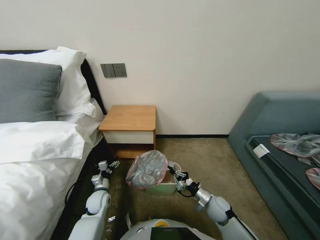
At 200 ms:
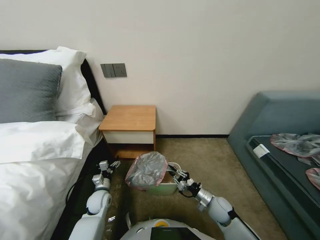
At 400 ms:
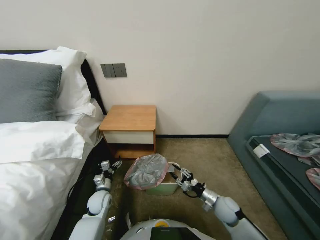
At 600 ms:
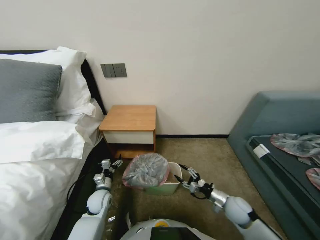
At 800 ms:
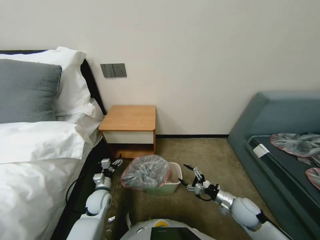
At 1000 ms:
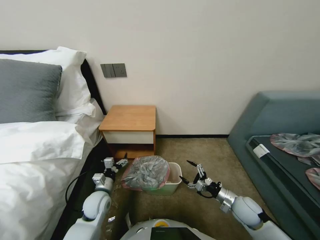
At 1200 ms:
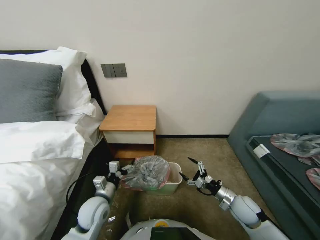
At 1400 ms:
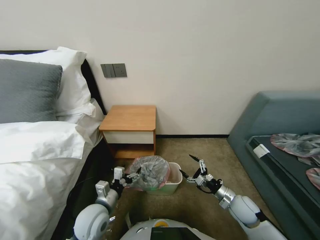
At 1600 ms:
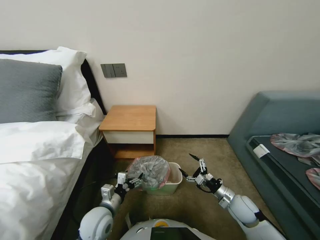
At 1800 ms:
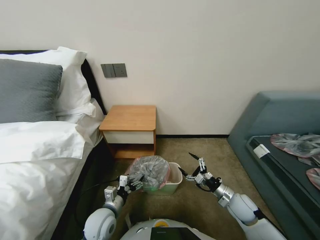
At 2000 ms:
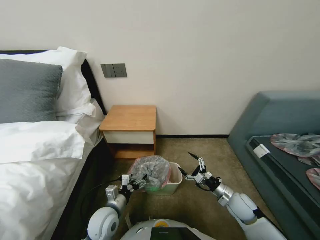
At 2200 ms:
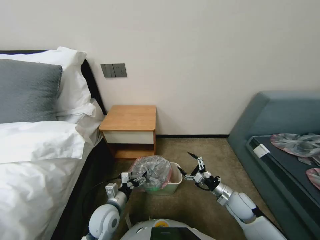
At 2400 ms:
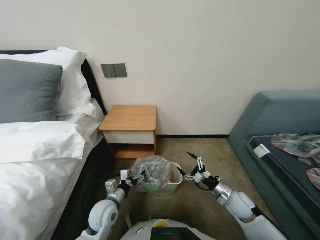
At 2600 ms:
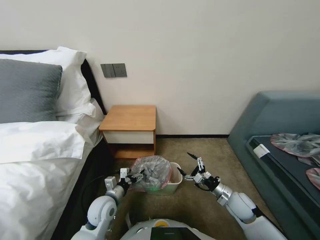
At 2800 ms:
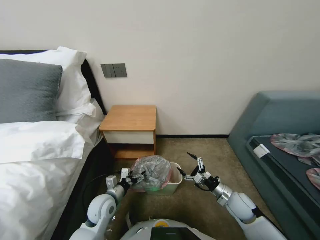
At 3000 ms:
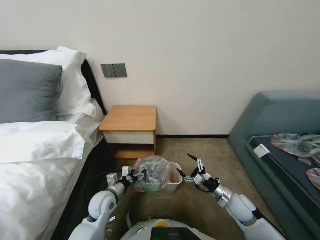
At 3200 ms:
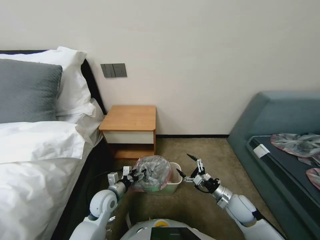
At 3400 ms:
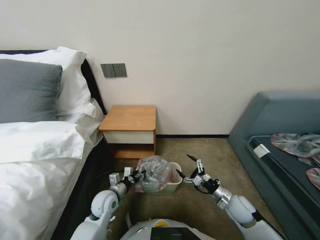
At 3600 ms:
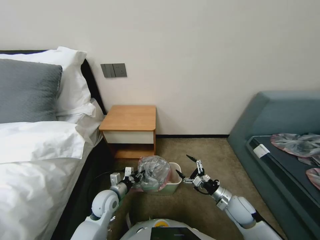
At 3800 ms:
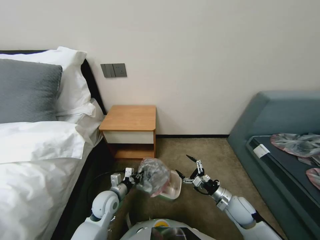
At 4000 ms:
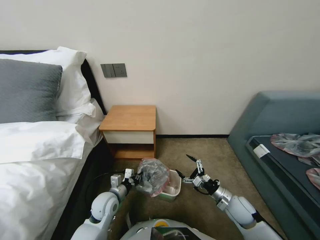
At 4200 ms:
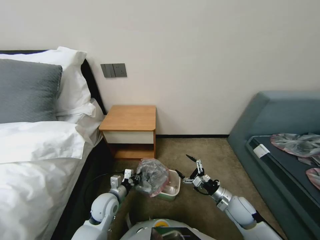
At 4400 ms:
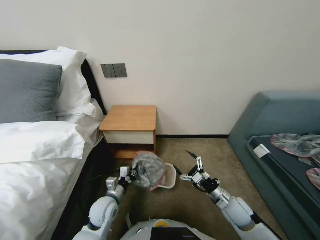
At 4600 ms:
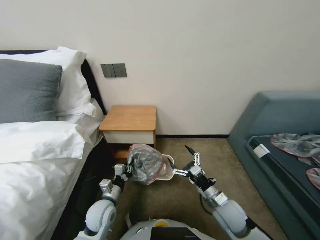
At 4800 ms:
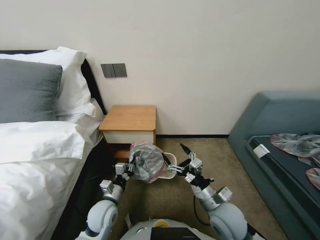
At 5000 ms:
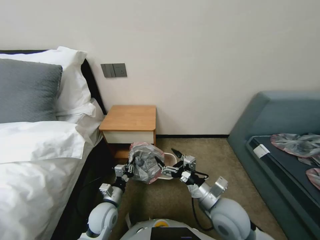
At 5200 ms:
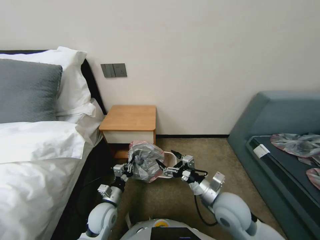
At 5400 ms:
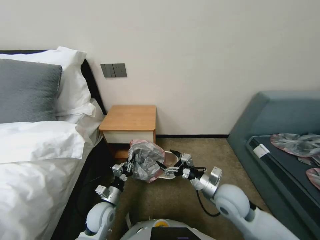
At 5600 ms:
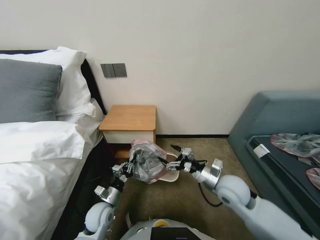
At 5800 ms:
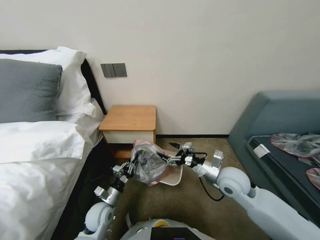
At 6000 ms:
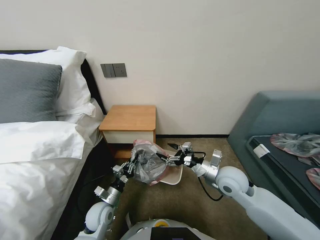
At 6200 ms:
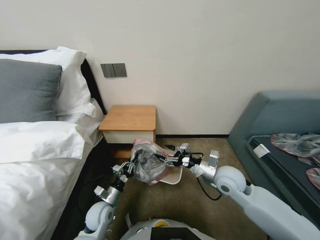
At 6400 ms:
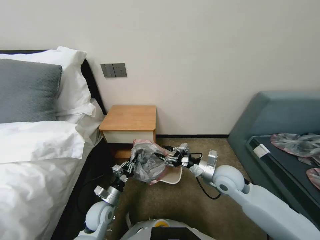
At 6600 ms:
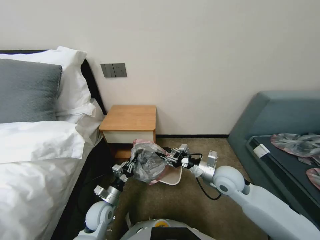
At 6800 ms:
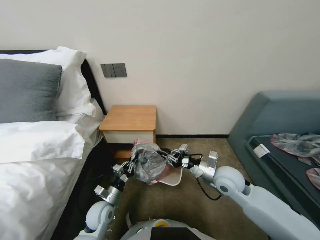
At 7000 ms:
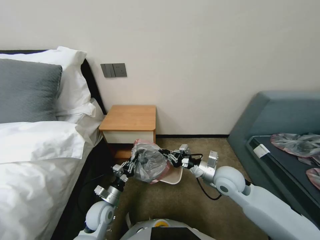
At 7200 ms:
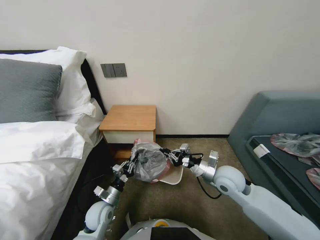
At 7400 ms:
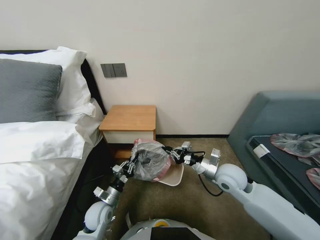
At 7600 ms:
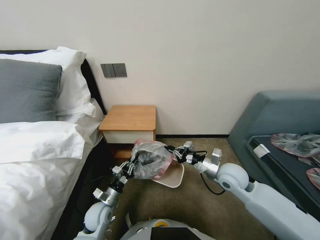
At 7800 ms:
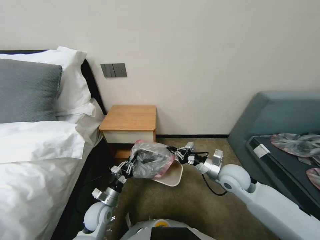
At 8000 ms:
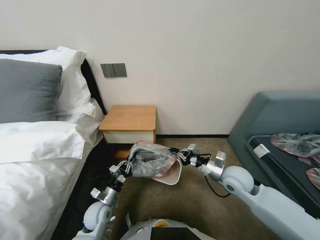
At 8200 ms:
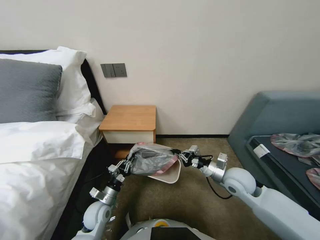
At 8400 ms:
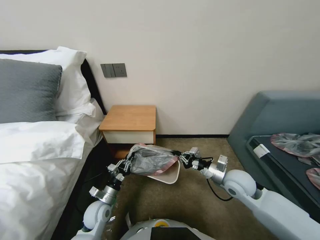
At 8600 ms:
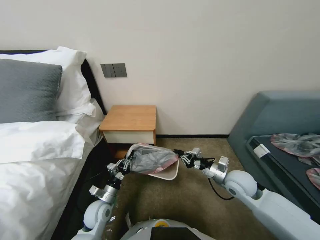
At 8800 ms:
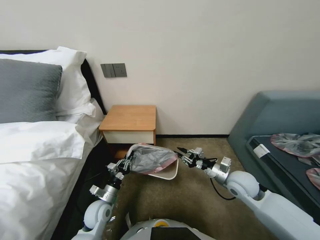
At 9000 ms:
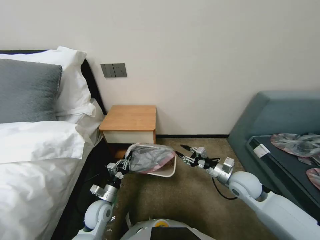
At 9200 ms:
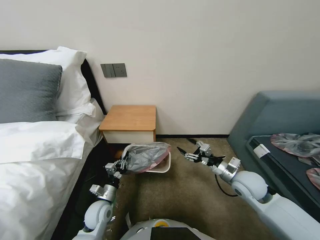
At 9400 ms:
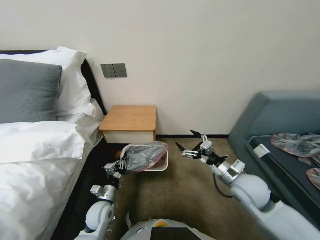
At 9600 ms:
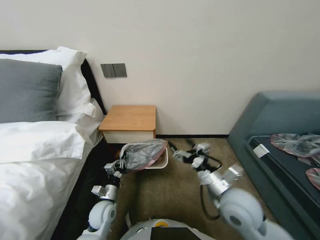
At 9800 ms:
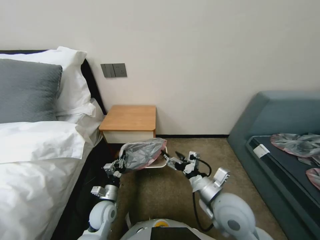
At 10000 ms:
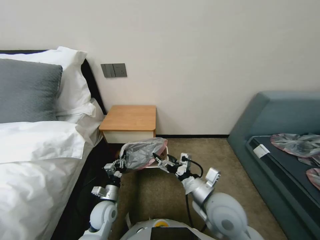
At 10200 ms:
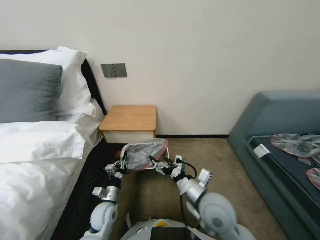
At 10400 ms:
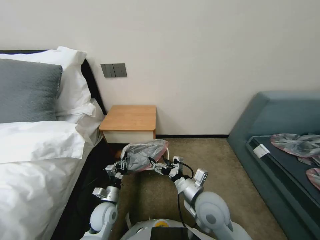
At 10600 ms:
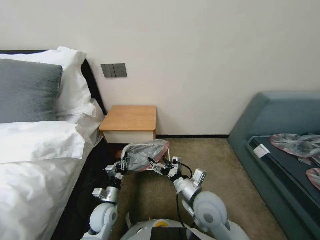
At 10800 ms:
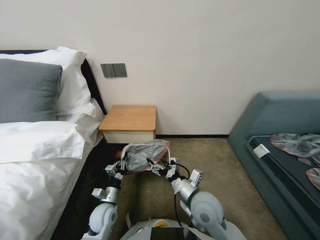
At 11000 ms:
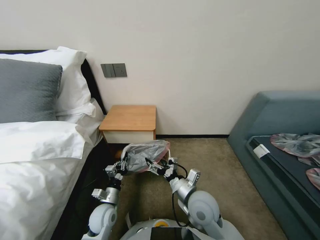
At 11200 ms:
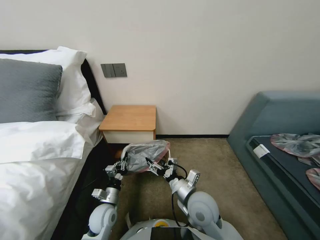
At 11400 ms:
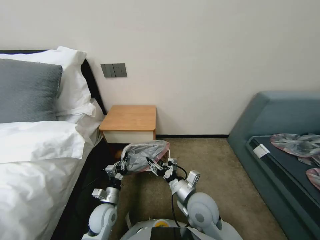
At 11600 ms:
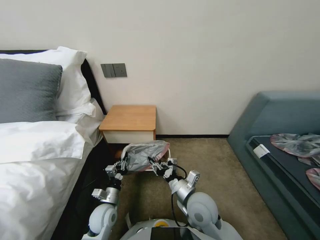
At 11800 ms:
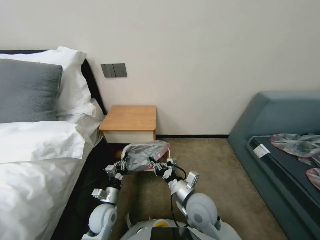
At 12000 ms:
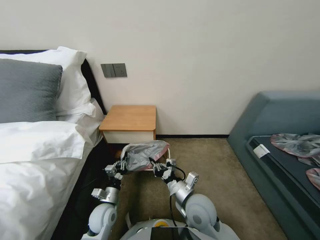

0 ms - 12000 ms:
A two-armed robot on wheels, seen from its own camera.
Task of the whole recording: Pick up the garbage bag from the table and place it over the trash can.
0 ms - 1600 ms: The left gripper shifts approximately 15 cm upward, backward and to the right. Meanwhile the right gripper moves to the right and upward, some 10 cm, and opens its fingers.
1600 ms - 3000 ms: The left gripper is displaced forward by approximately 5 cm.
3000 ms - 4400 ms: The left gripper closes its fingers.
4400 ms - 6000 ms: The right gripper heads upward and to the left, covering roughly 15 cm.
6000 ms - 7600 ms: The right gripper closes.
7600 ms - 9000 ms: The right gripper is displaced to the right by about 5 cm, and opens its fingers.
9000 ms - 10400 ms: The right gripper goes approximately 20 cm to the left and backward, and opens.
10400 ms - 12000 ms: The right gripper closes.

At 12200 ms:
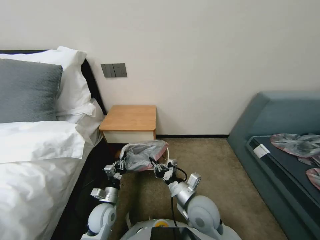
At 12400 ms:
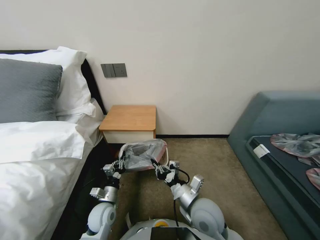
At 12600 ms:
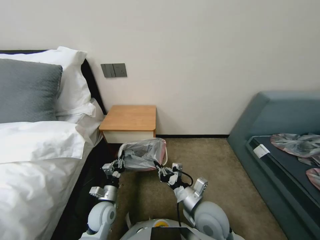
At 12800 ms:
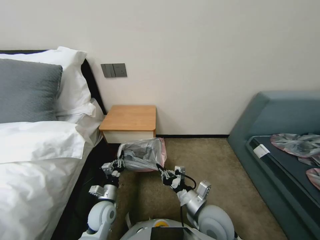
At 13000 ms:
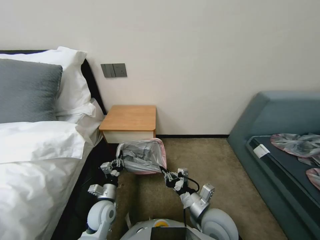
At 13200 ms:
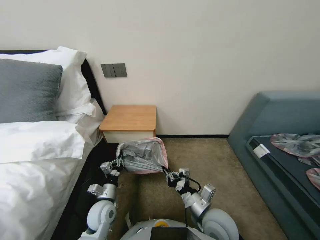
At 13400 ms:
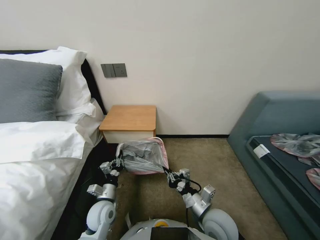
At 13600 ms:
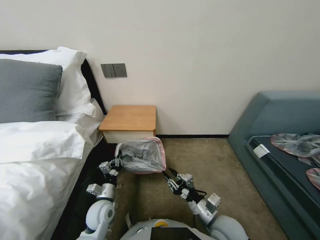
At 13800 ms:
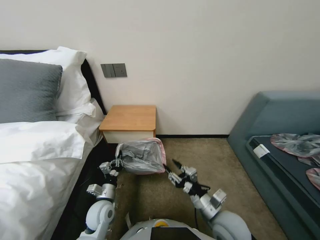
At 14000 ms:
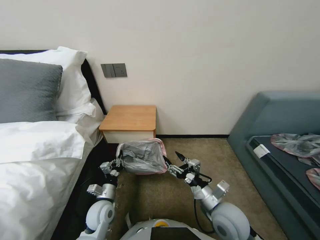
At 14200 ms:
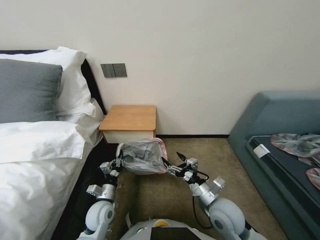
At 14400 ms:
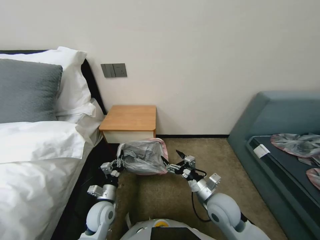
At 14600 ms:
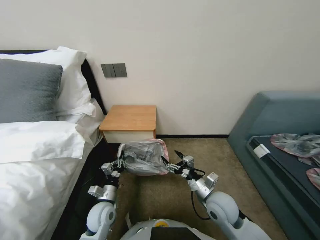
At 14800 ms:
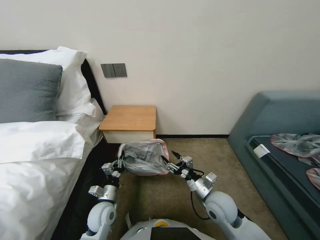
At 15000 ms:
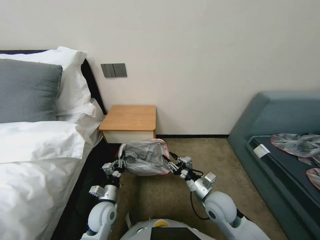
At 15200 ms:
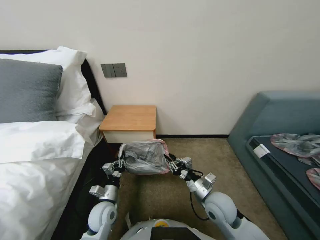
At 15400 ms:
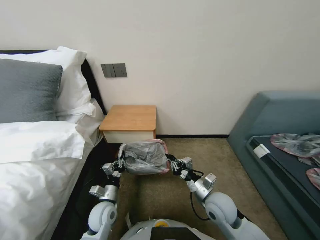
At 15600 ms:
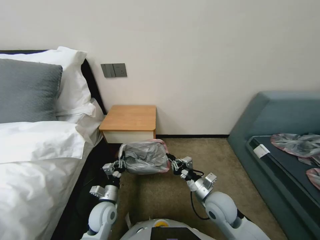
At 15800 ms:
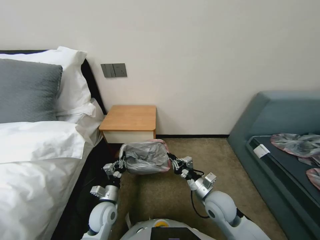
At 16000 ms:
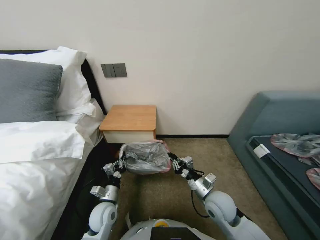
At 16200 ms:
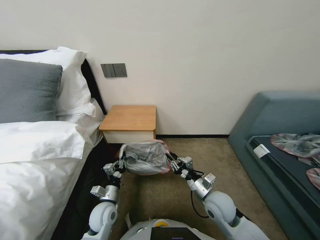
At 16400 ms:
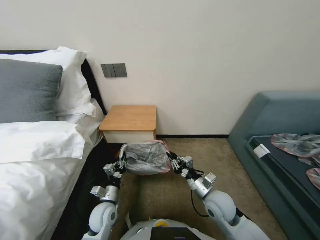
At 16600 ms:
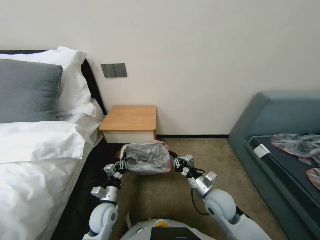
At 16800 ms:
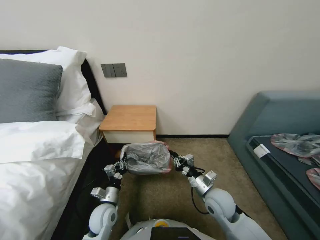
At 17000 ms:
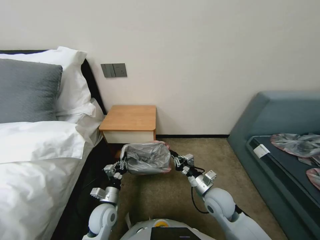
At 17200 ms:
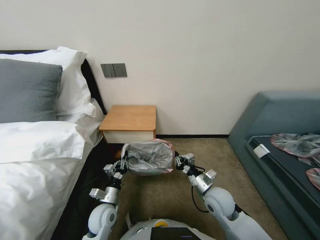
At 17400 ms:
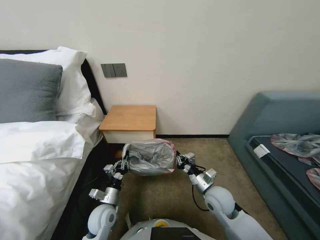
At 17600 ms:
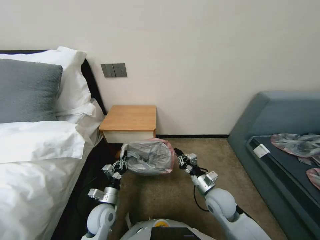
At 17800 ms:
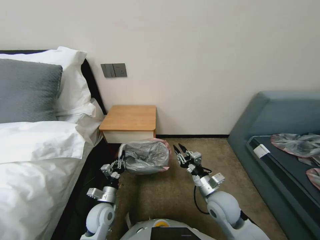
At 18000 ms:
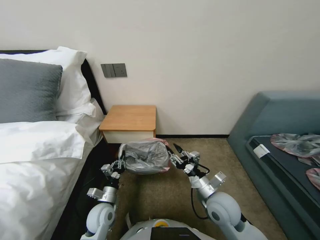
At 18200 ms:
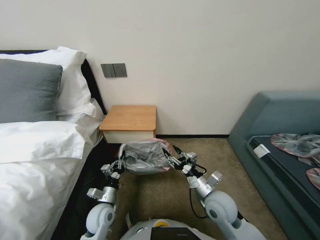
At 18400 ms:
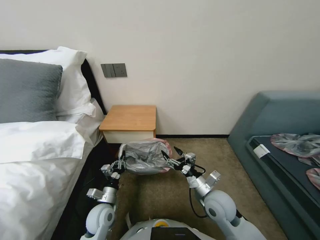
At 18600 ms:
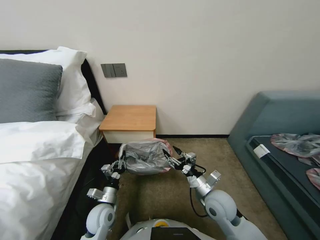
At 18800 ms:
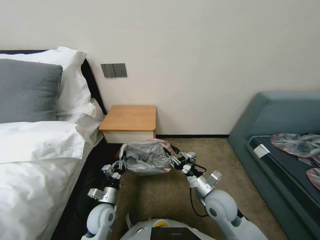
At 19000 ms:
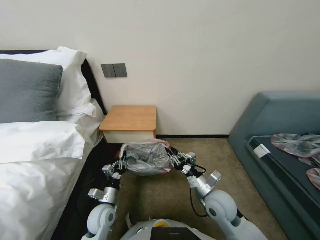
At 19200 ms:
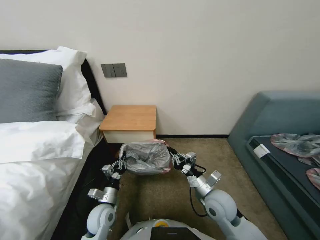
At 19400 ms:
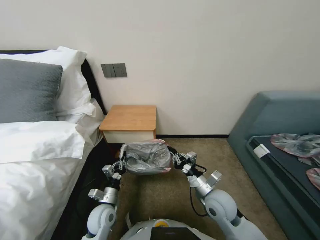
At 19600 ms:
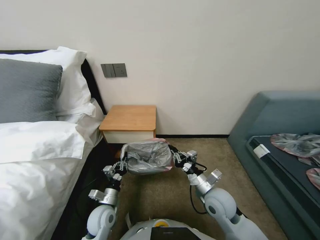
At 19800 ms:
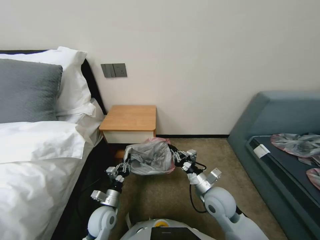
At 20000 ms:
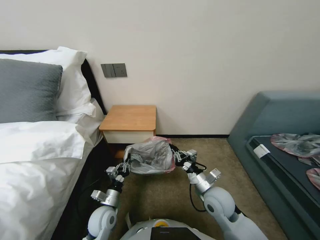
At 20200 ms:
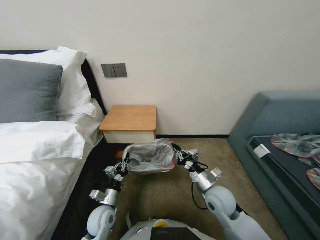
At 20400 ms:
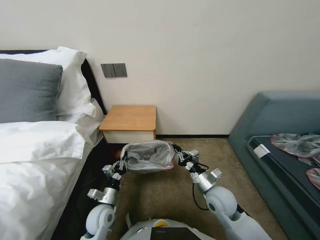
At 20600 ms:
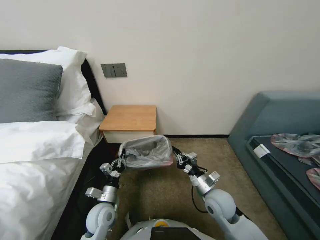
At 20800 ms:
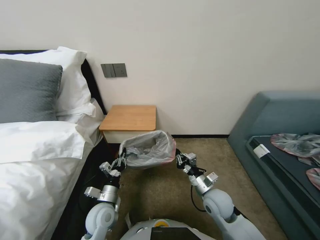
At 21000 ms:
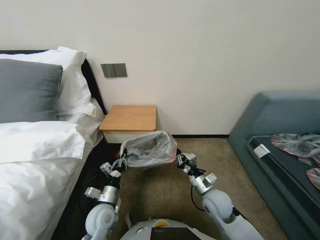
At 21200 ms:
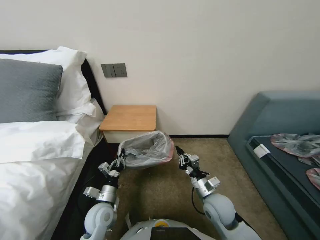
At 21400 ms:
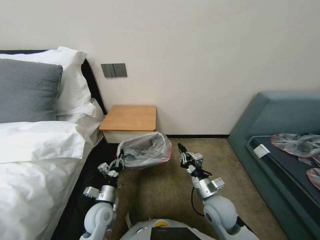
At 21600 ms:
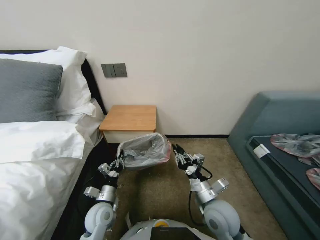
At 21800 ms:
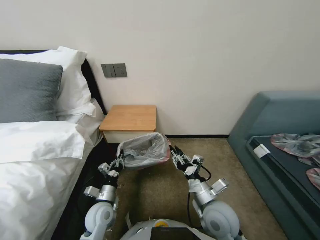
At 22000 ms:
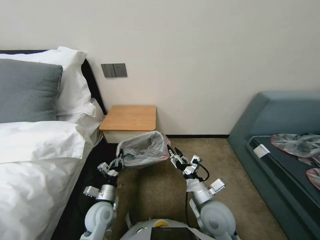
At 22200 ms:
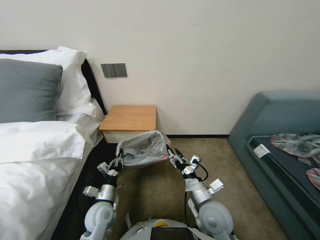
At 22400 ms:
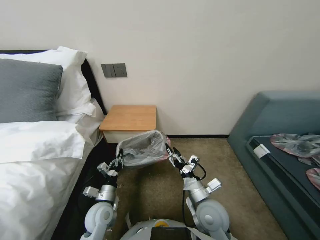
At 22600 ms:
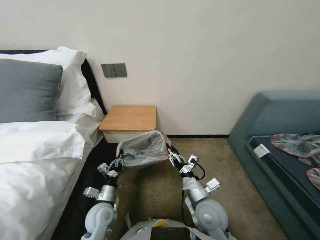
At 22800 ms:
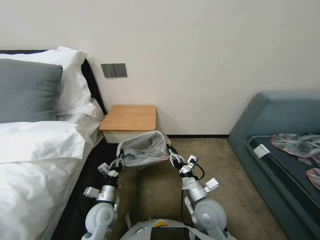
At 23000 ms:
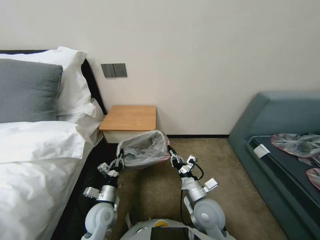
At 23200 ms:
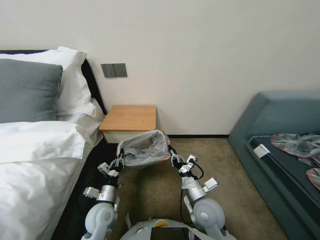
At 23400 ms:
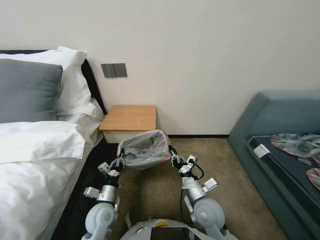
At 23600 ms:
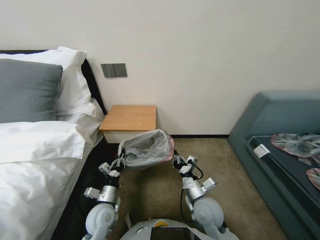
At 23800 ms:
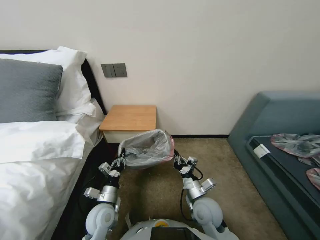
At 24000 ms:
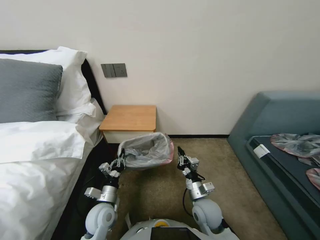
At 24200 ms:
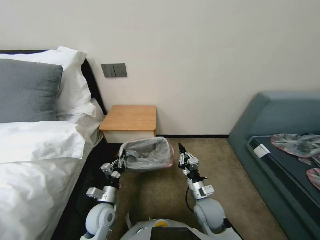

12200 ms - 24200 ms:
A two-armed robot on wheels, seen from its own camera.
Task of the whole recording: Pick up the garbage bag from the table and place it over the trash can.
12200 ms - 13800 ms: The right gripper shifts roughly 10 cm to the right and backward, and opens up.
13800 ms - 15200 ms: The right gripper goes approximately 5 cm forward, and opens and closes again.
15200 ms - 16600 ms: The grippers move only a little.
16600 ms - 18200 ms: The right gripper opens its fingers.
18200 ms - 19800 ms: The right gripper closes up.
19800 ms - 21200 ms: The grippers stay close to where they were, moving slightly.
21200 ms - 22600 ms: The right gripper changes place by some 5 cm, and opens its fingers.
22600 ms - 24200 ms: The right gripper travels downward by roughly 5 cm, and closes.
